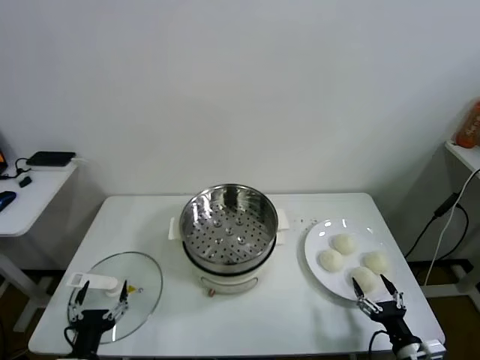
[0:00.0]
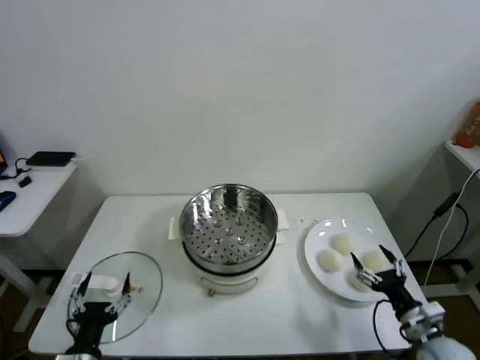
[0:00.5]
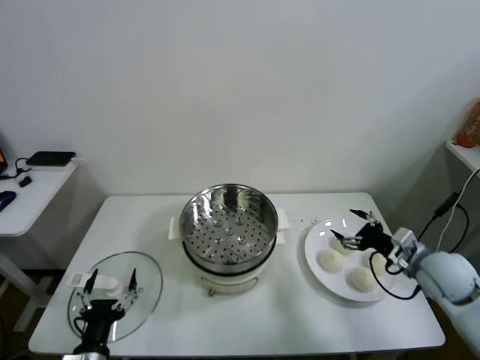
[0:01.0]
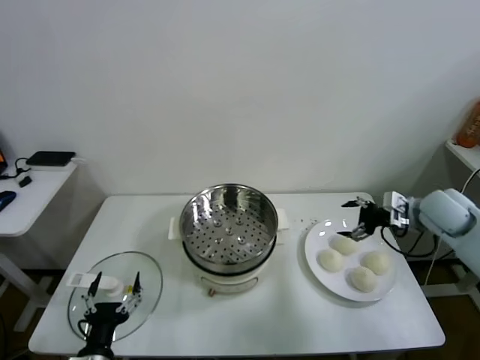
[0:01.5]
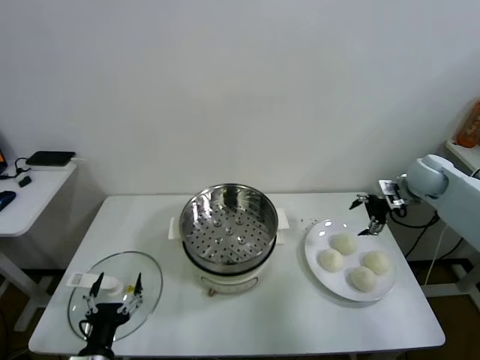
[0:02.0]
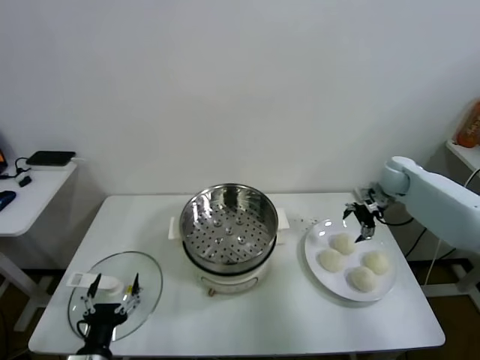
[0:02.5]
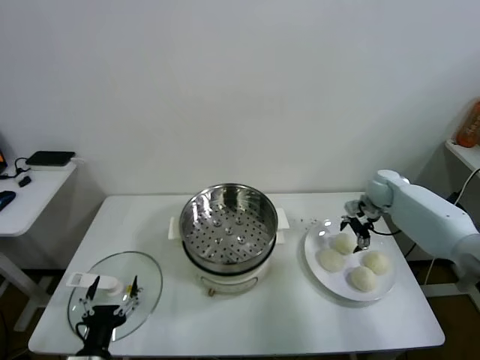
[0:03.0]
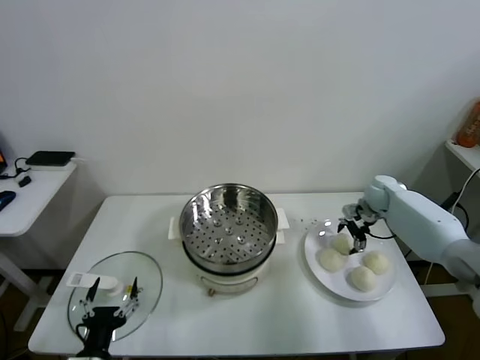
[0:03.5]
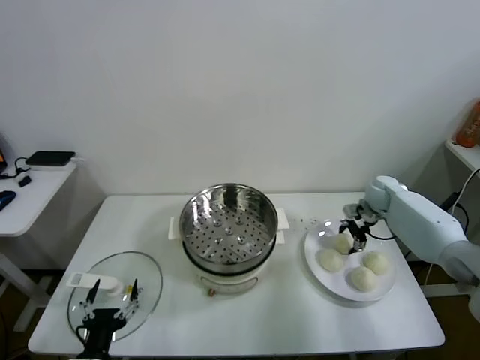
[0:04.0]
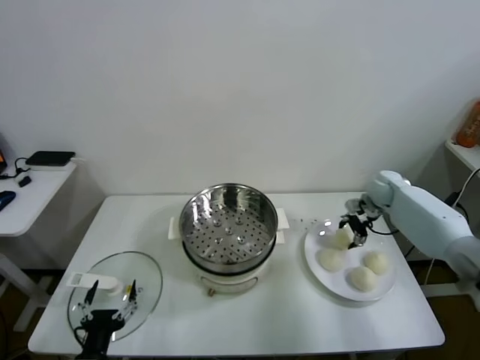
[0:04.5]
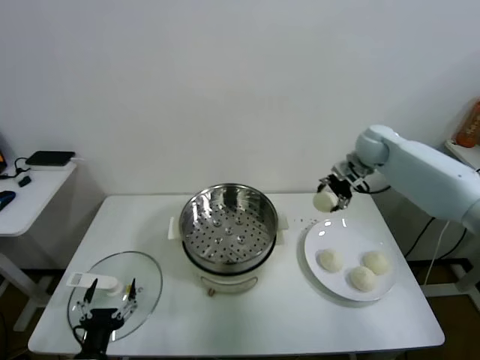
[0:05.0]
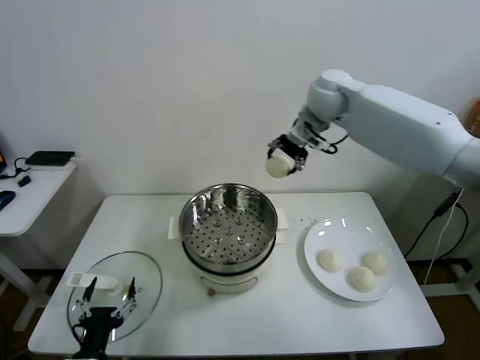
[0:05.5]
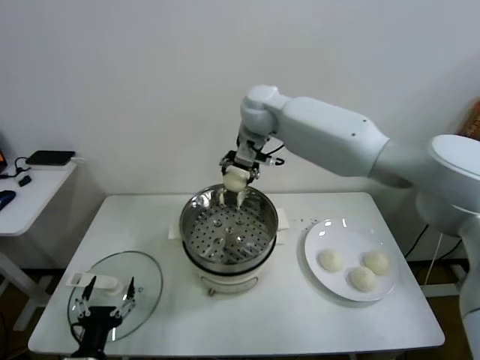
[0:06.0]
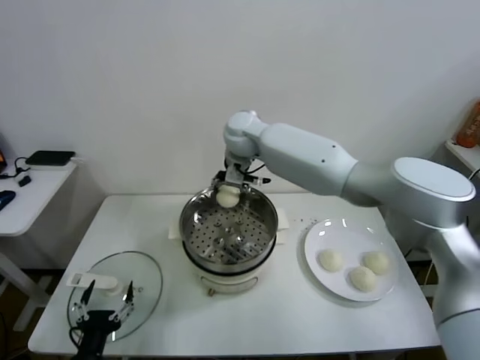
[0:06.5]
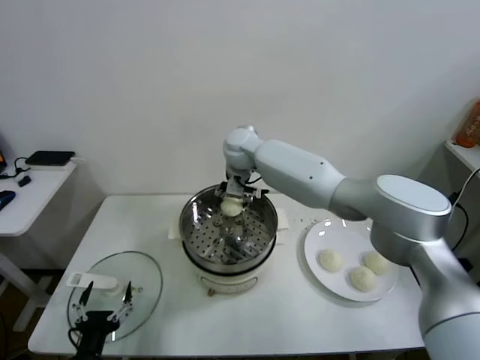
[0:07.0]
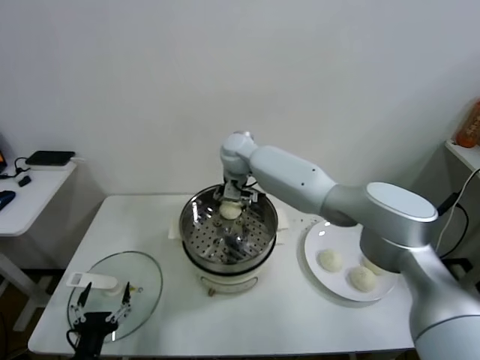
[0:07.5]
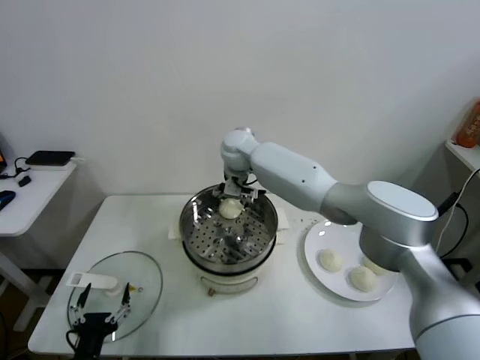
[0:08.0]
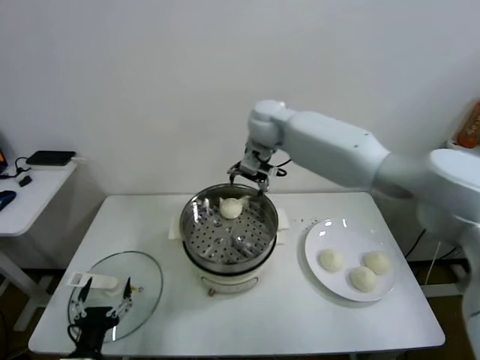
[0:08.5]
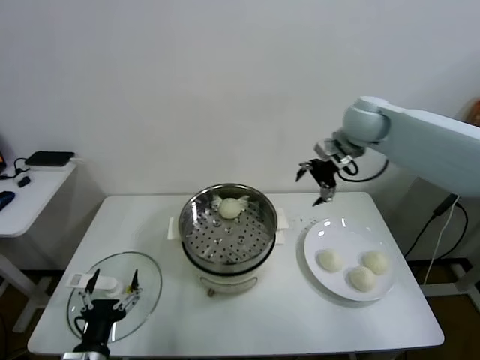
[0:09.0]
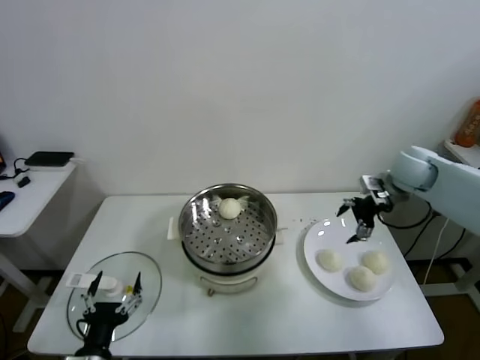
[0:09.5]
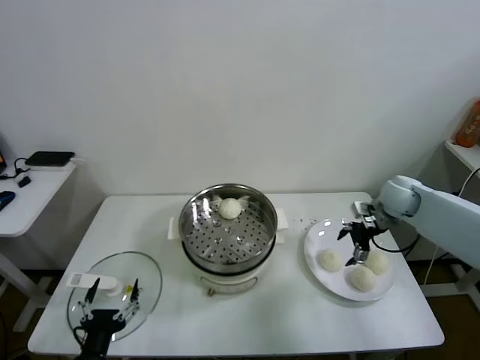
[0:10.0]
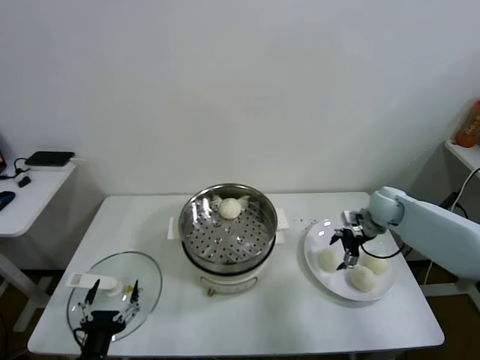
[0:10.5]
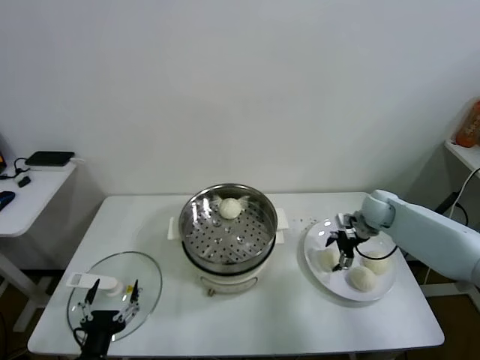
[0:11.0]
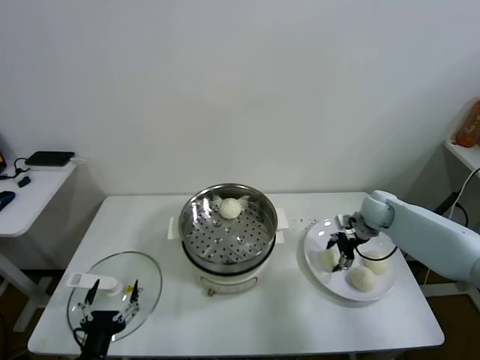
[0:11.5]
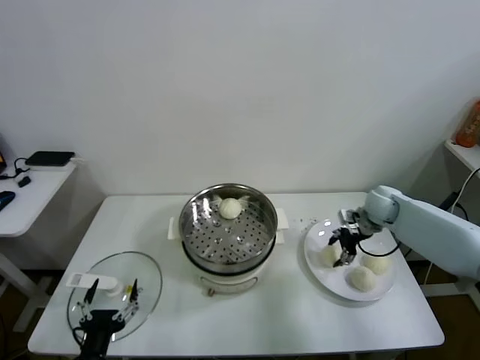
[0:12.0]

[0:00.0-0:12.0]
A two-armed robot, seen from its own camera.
Task of the whole recording: take steamed baozi put them in steamer.
Step, 0.0 to 4.0 s: Grasp the baozi in the plate with right gripper.
Step, 4.5 to 8.0 s: Place the baozi on the steamer with right gripper.
Step, 8.5 to 11.5 s: Grasp the baozi in the plate with right gripper.
2.0 to 4.0 s: The right gripper heads downward, covering approximately 10 cm, and closes its fingers.
4.0 to 6.0 s: The right gripper shifts roughly 40 cm to the left and upward.
6.0 to 8.0 s: The right gripper heads downward, covering roughly 10 cm, and opens.
8.0 to 10.0 s: The right gripper is displaced to the right by about 40 cm.
10.0 to 12.0 s: The right gripper closes.

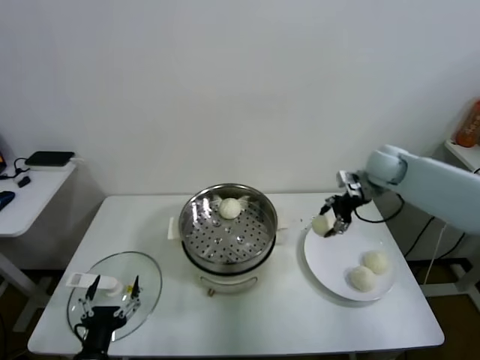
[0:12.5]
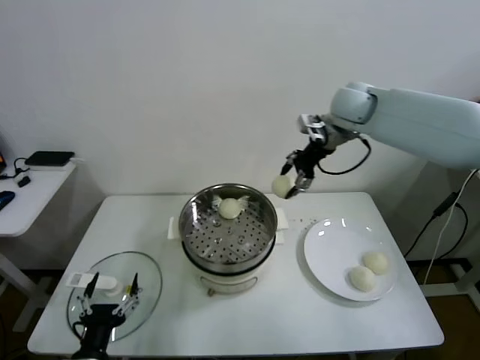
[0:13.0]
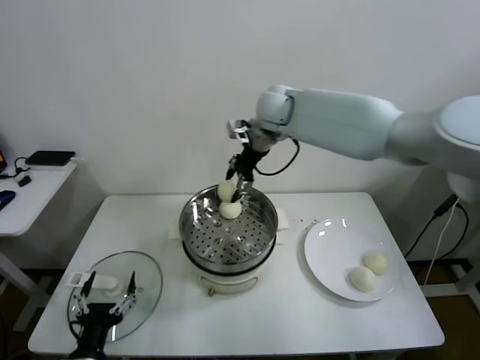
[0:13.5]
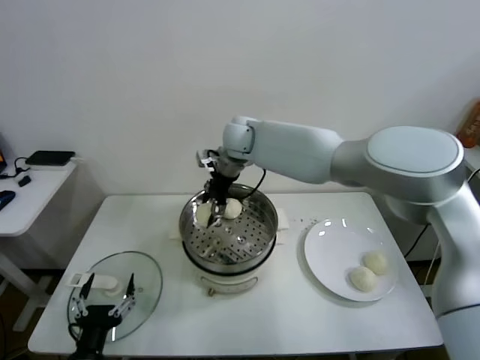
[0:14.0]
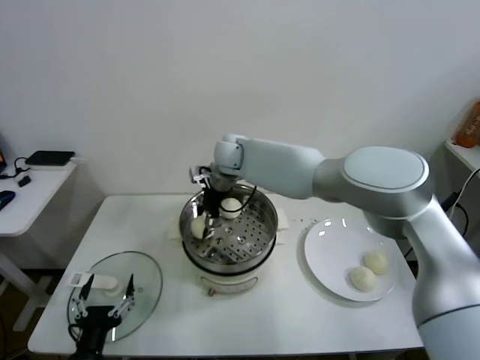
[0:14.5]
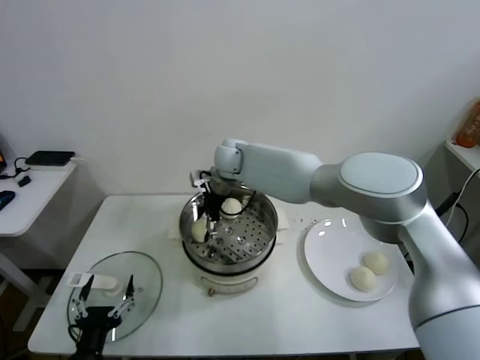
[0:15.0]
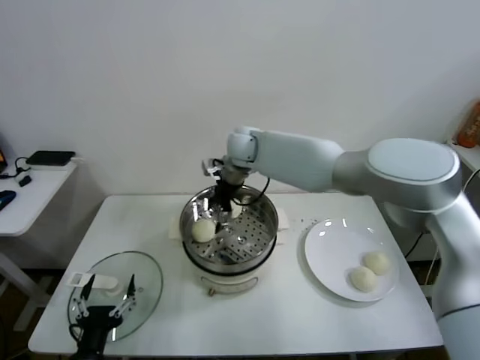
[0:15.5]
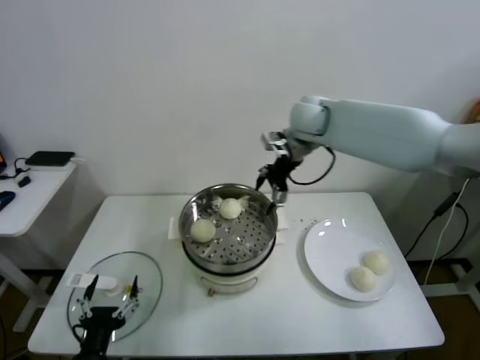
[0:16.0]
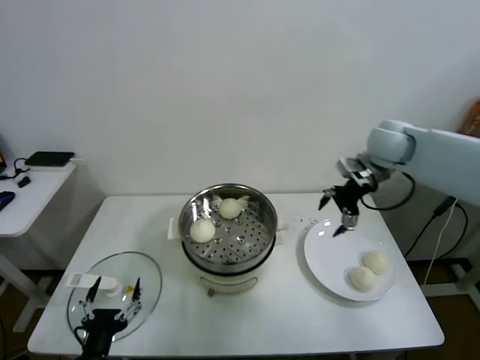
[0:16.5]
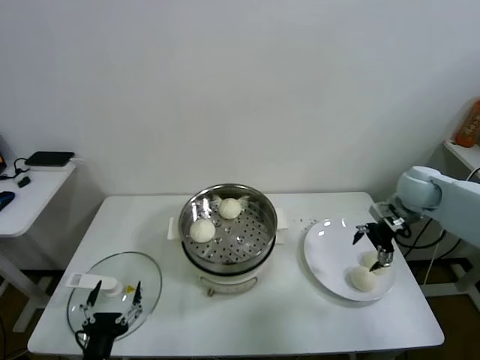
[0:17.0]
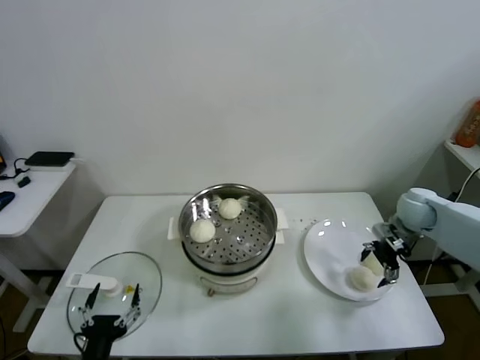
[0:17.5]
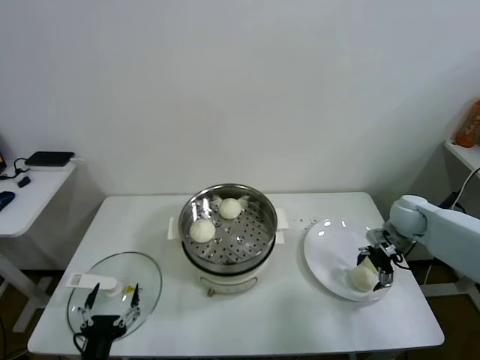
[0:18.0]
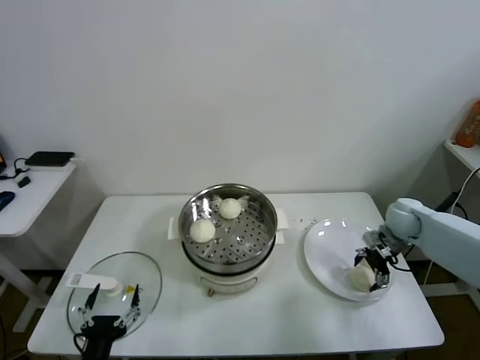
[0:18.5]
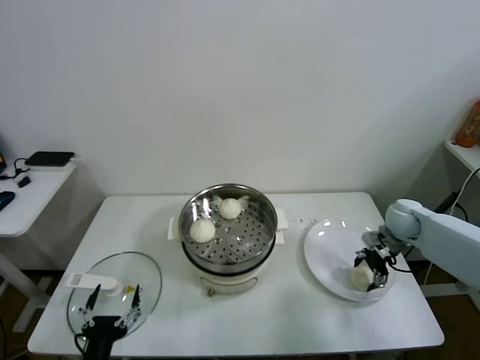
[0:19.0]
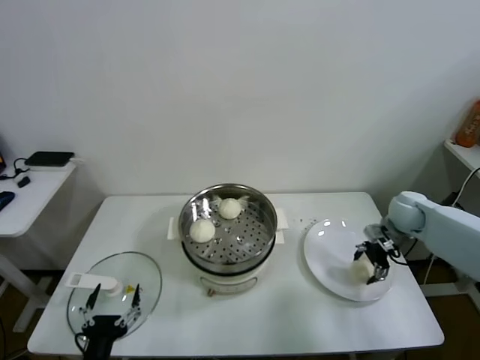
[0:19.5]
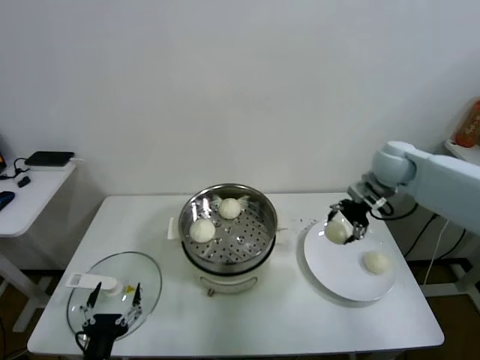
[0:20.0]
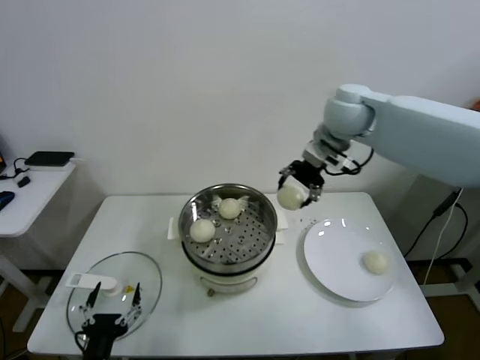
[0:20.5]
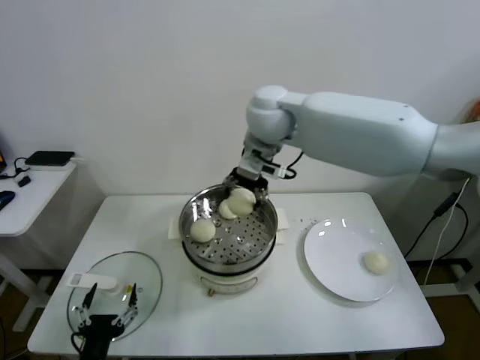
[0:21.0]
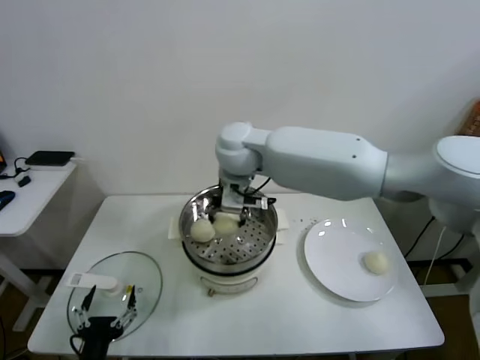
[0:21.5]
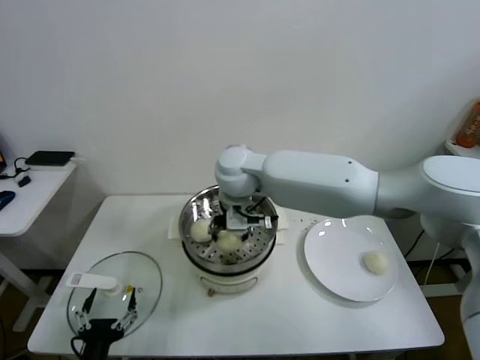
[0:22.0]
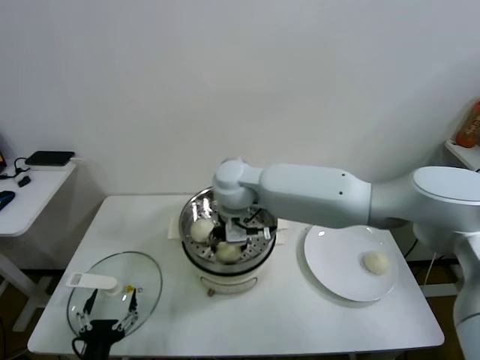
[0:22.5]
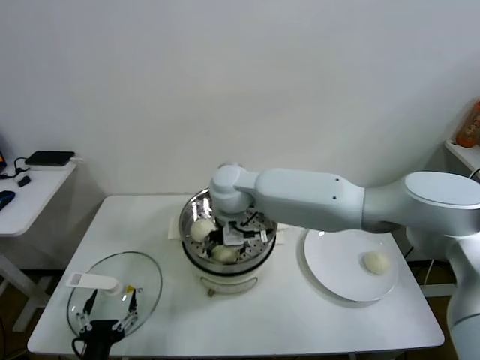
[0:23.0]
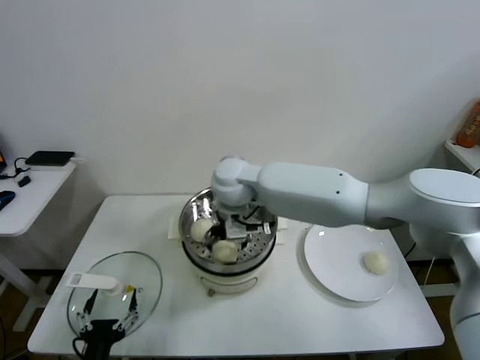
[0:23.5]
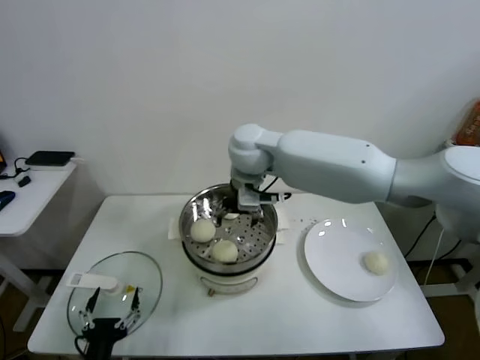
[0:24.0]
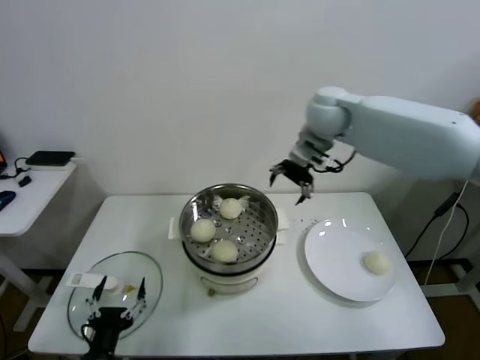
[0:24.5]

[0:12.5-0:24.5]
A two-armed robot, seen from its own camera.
Task of the whole recording: take steamed baozi put them in steamer.
Step, 12.5 to 15.0 s: Place the baozi on the steamer with right gripper.
Step, 15.5 to 19.0 s: Grasp the baozi in the plate with right gripper.
Step, 19.5 to 23.0 s: Place the baozi on the steamer with right gripper.
12.5 to 14.5 s: The right gripper moves to the left, some 35 cm.
14.5 to 16.5 s: The right gripper moves to the right, about 35 cm, and opens its fingers.
16.5 to 18.5 s: The right gripper heads downward and to the right, covering some 20 cm.
18.5 to 20.5 s: The right gripper shifts roughly 35 cm upward and to the left, and closes up.
20.5 to 22.5 s: The right gripper moves to the left and downward, some 25 cm.
22.5 to 24.5 s: The right gripper moves to the right, upward and forward, about 25 cm, and opens its fingers.

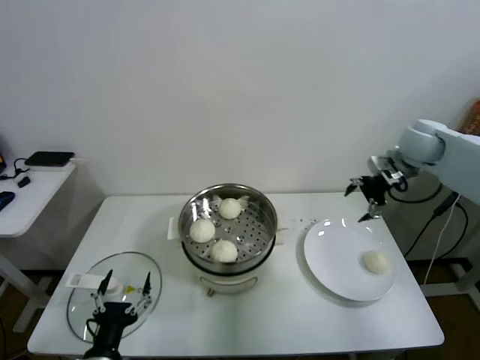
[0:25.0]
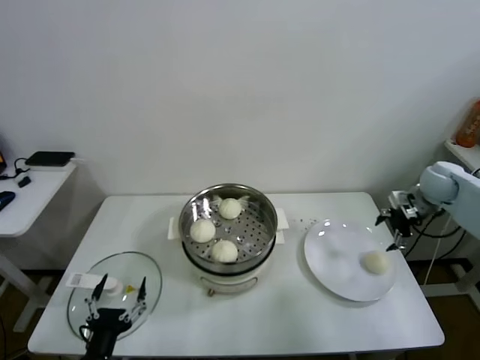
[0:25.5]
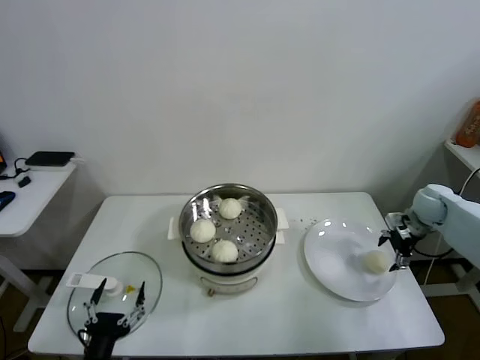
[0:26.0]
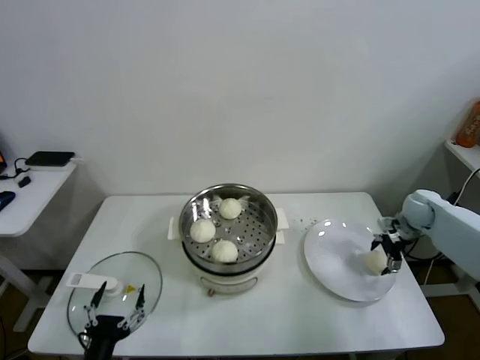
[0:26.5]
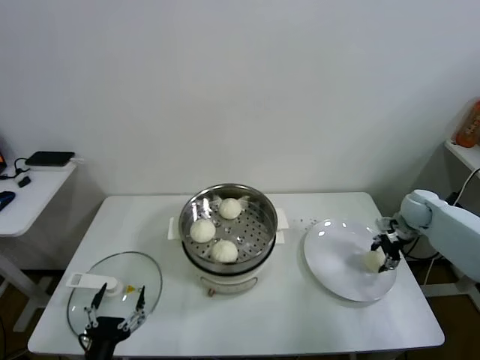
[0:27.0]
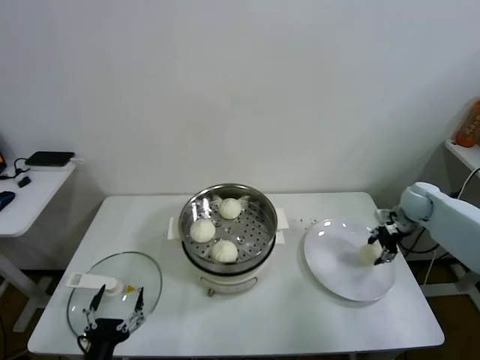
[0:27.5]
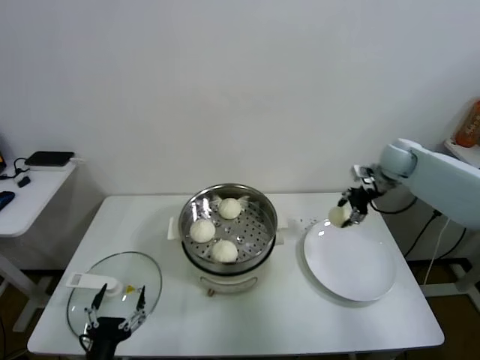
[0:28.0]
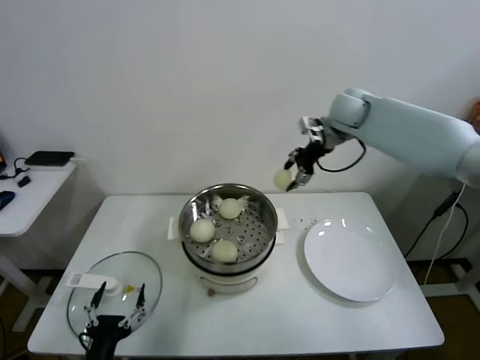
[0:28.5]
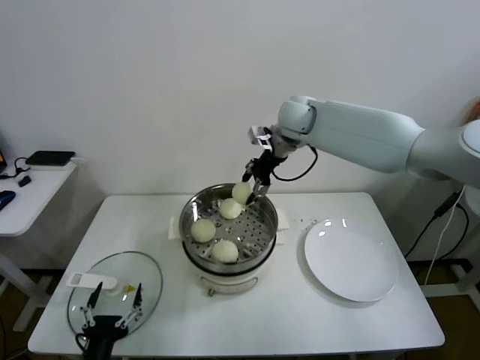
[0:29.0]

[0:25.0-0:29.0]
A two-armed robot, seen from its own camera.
Task of the whole recording: take steamed baozi put them in steamer.
Step, 25.0 to 27.0 s: Grasp the baozi in the plate with right gripper.
25.0 to 27.0 s: The right gripper moves downward, roughly 20 cm, and closes its fingers.
27.0 to 29.0 s: The right gripper shifts some 40 cm to the left and upward.
